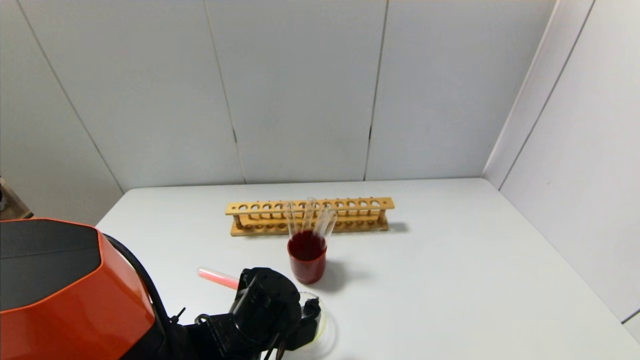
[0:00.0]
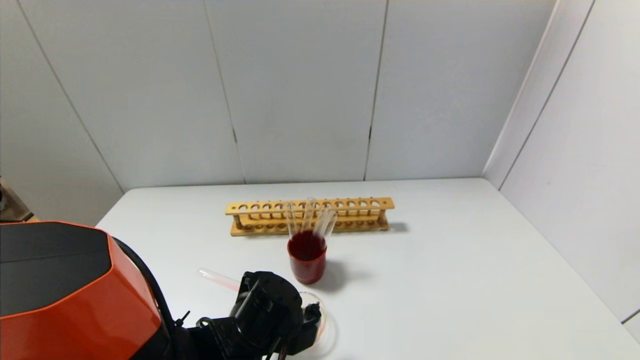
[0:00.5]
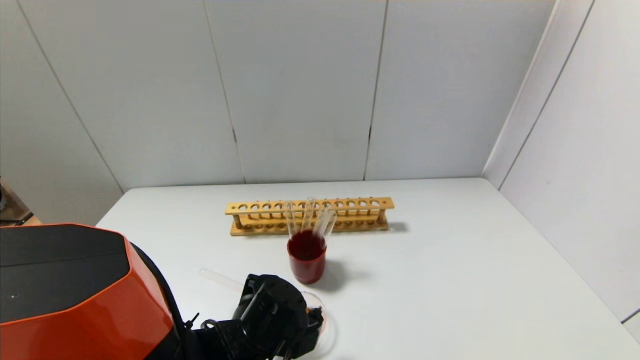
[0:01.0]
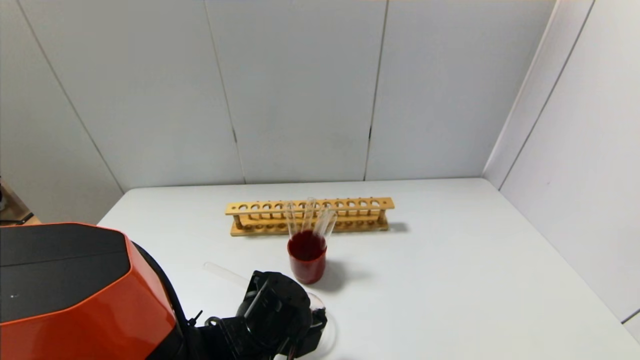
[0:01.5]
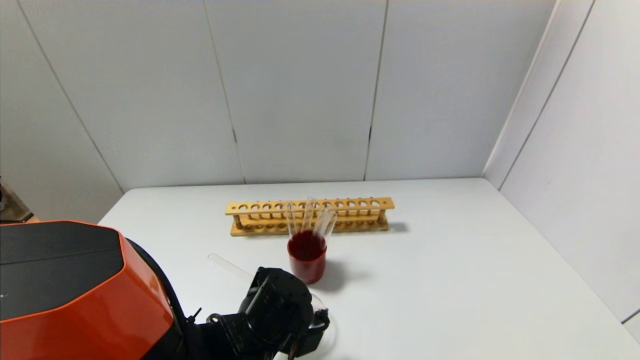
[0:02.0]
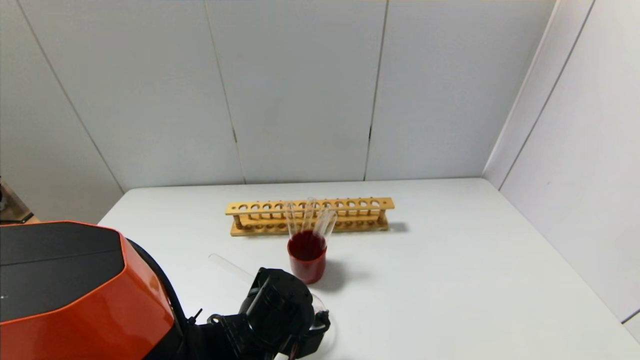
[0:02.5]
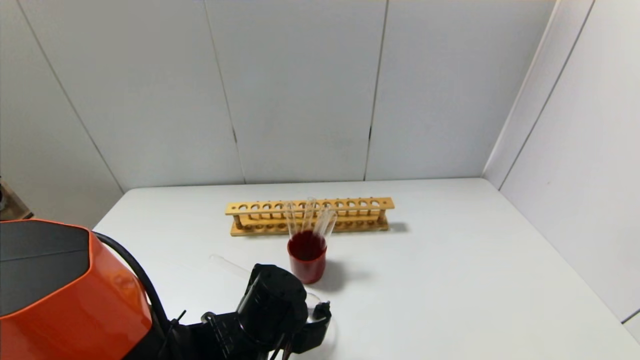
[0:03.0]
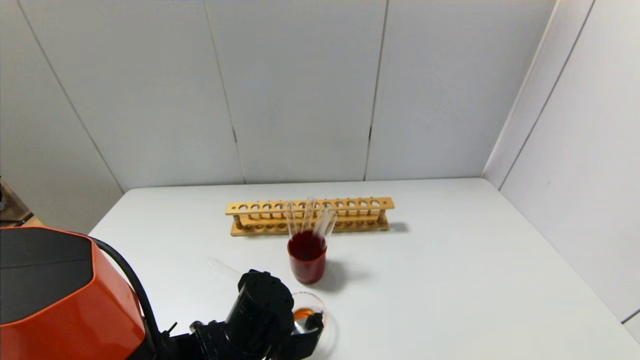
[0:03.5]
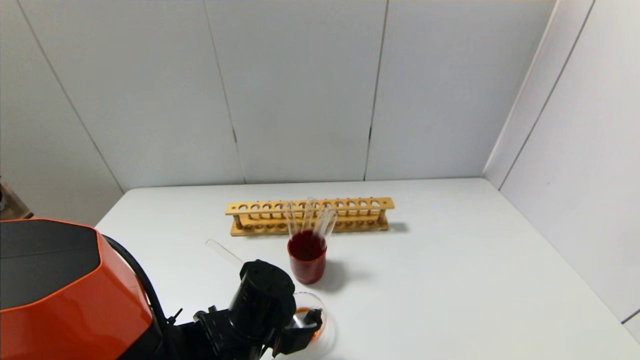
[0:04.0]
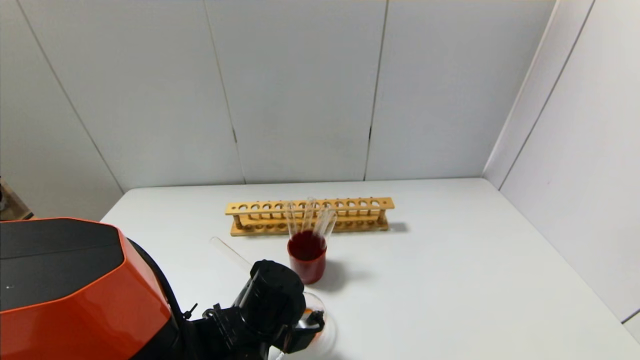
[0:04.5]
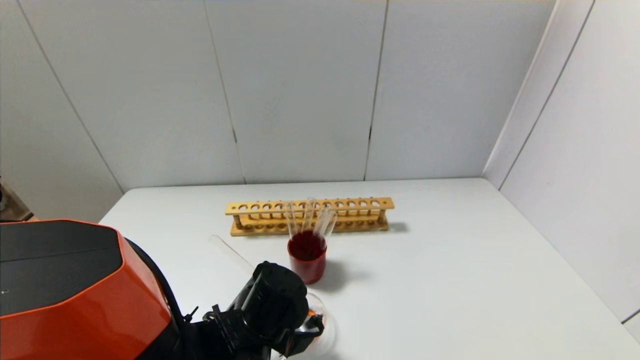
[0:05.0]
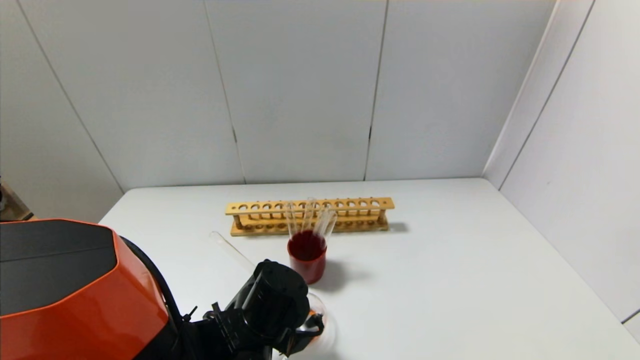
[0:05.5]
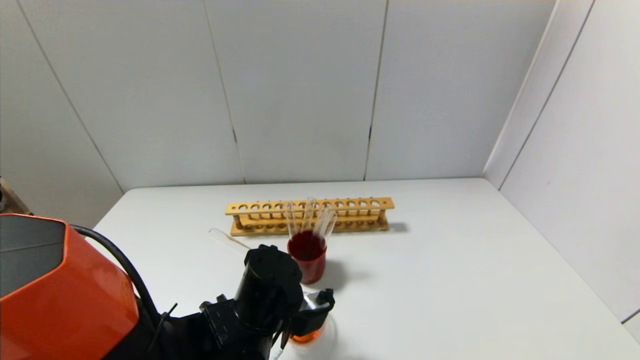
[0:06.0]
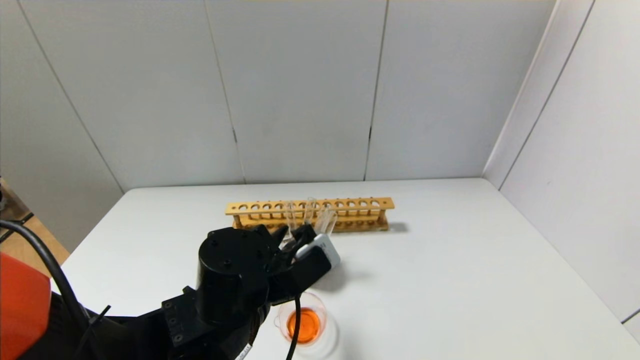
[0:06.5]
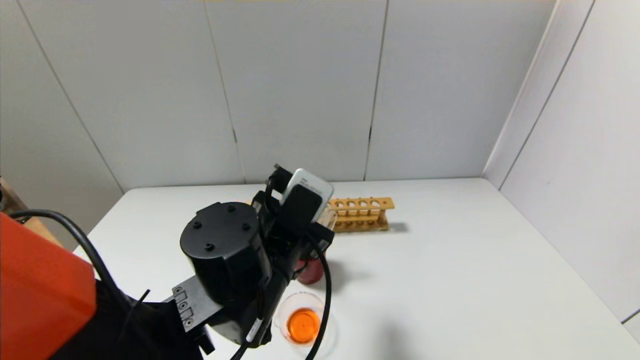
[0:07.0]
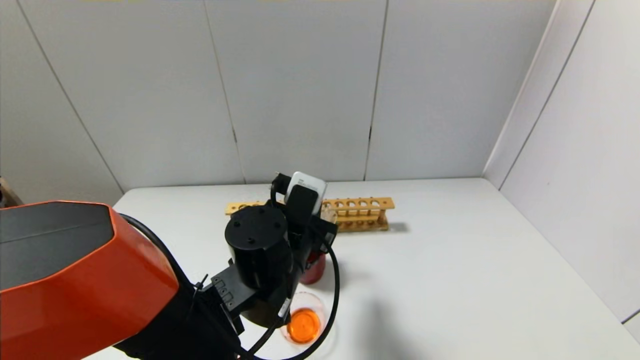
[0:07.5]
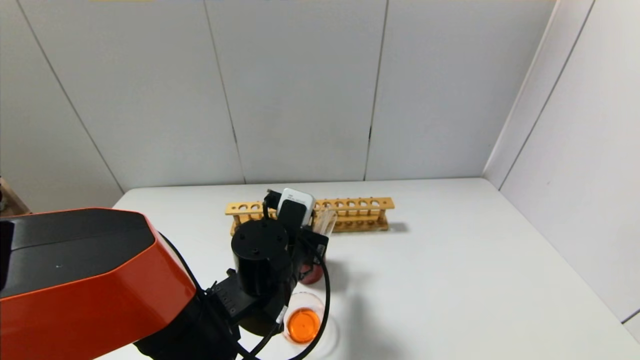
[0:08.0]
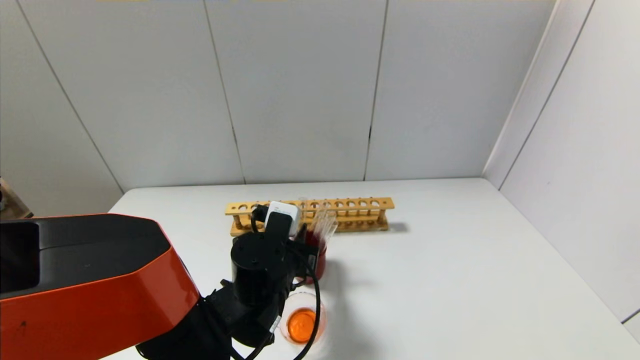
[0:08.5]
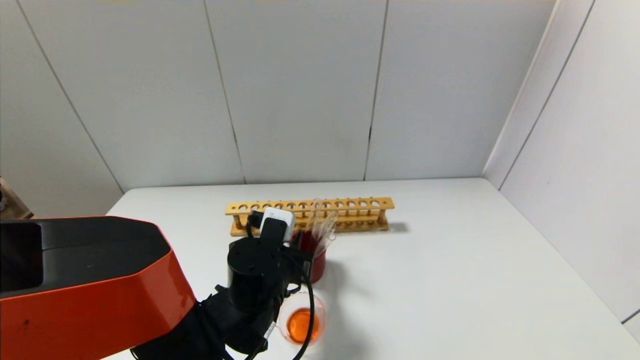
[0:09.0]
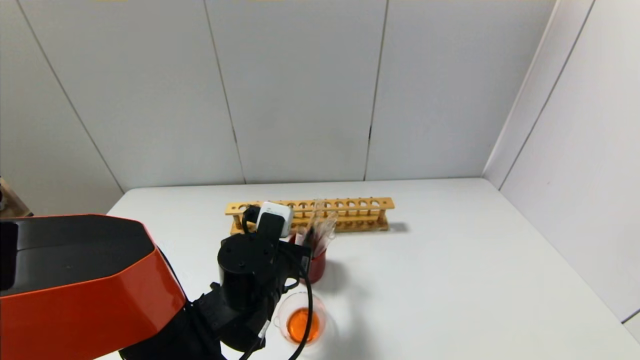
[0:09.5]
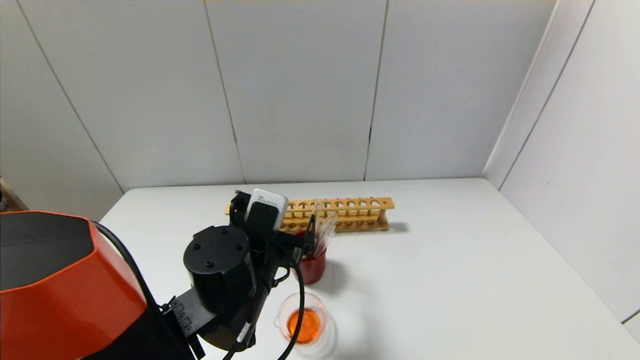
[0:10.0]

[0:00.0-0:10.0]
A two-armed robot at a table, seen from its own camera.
Step, 0:00.0 to 0:06.0: Pour the red reagent into the graduated cylinder with the left gripper.
Step, 0:06.5 to 0:10.0: Place the test tube into the brown cup with the left gripper.
0:00.0 to 0:04.0: There are only small adjustments of the grippers.
0:04.0 to 0:06.0: There are only small adjustments of the grippers.
0:06.0 to 0:08.0: The left gripper reaches about 10 cm upward, then returns.
0:08.0 to 0:10.0: The left gripper opens its fingers.

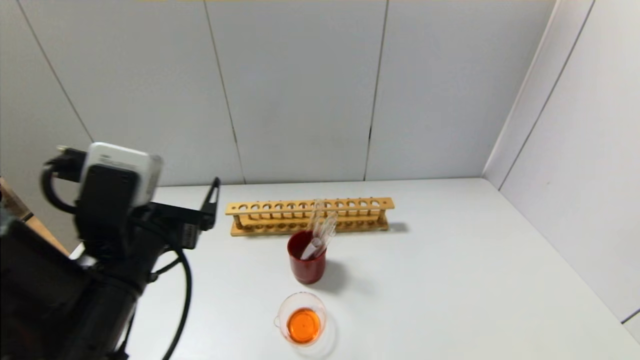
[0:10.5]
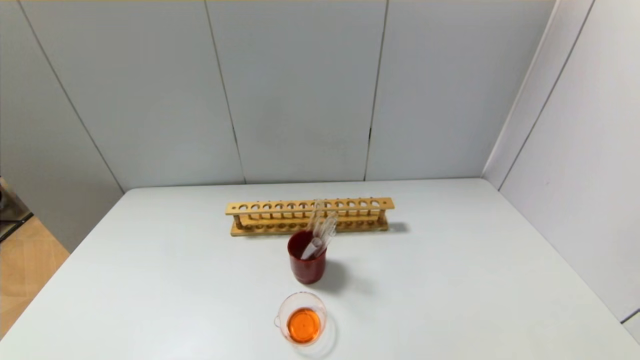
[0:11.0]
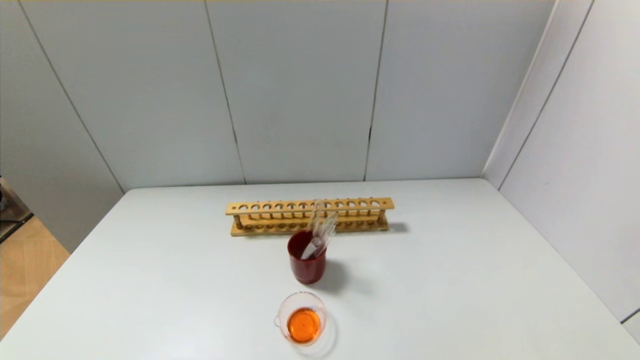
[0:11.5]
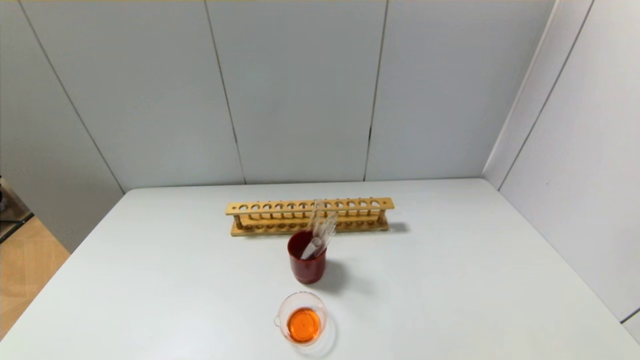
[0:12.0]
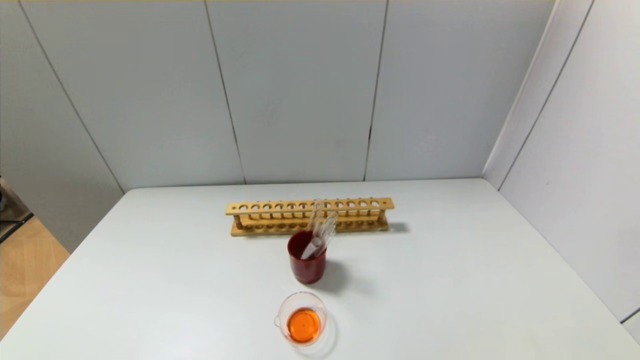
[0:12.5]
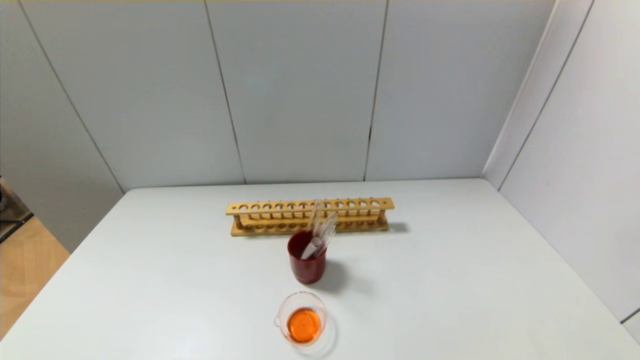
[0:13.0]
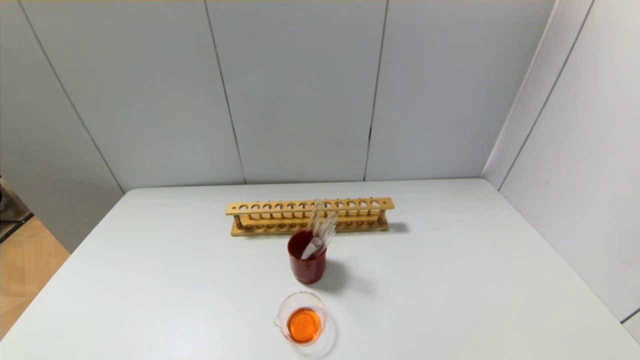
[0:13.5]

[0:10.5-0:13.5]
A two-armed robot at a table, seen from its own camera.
0:10.5 to 0:12.0: The left gripper shifts some 25 cm backward and to the left.
